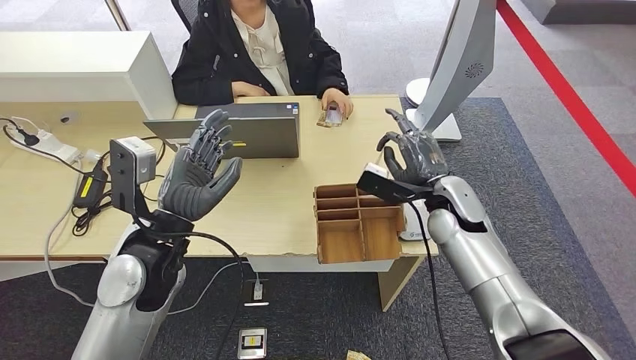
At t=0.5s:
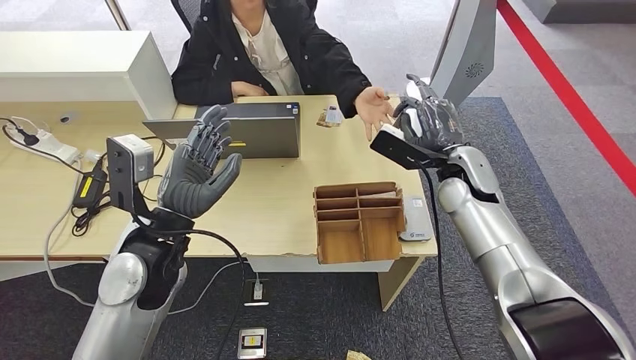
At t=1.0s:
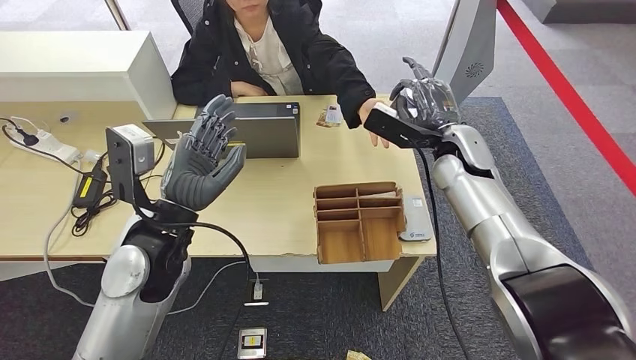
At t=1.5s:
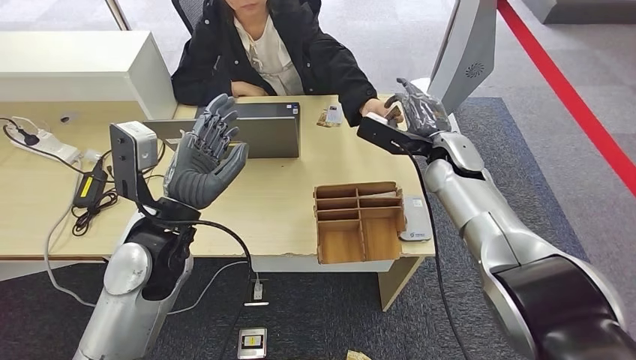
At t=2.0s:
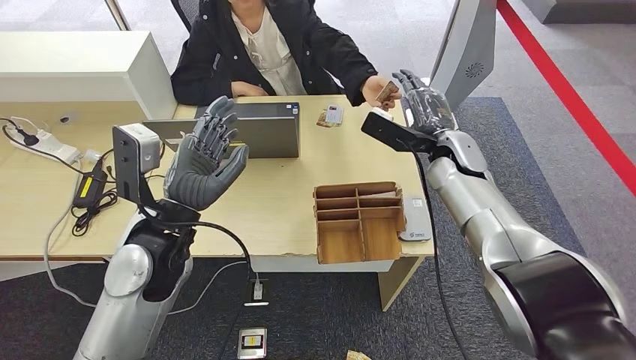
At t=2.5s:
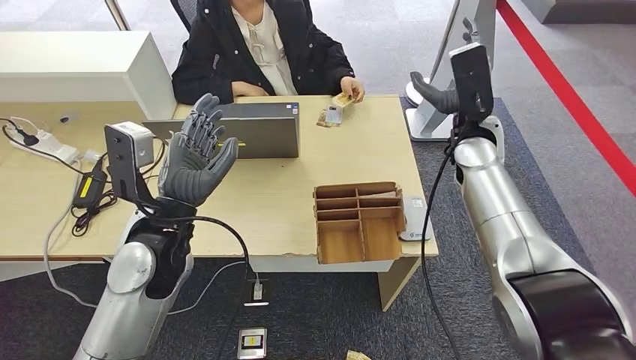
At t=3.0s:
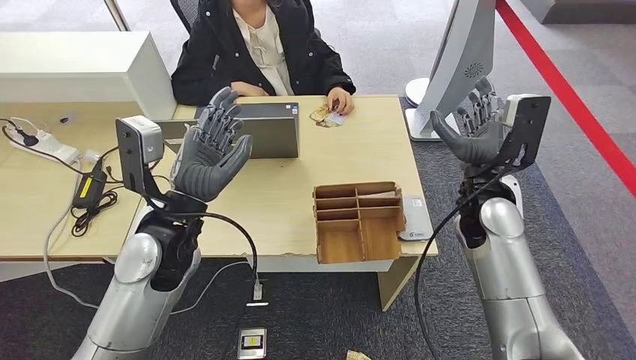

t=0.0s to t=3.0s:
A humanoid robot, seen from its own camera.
Step, t=0.5s to t=3.0s: Hand the room key to the person.

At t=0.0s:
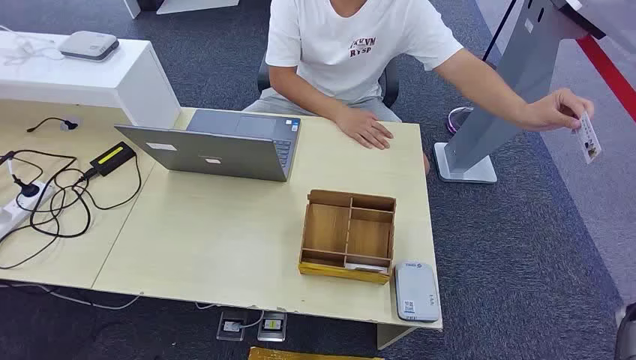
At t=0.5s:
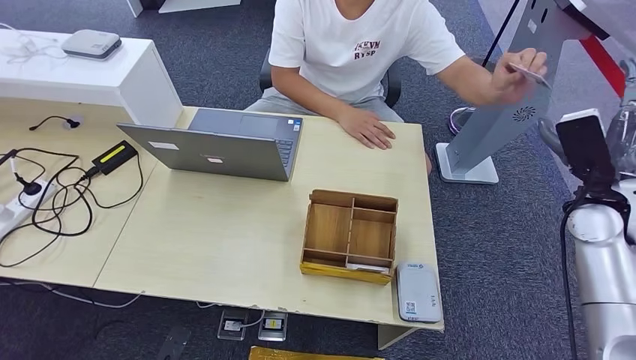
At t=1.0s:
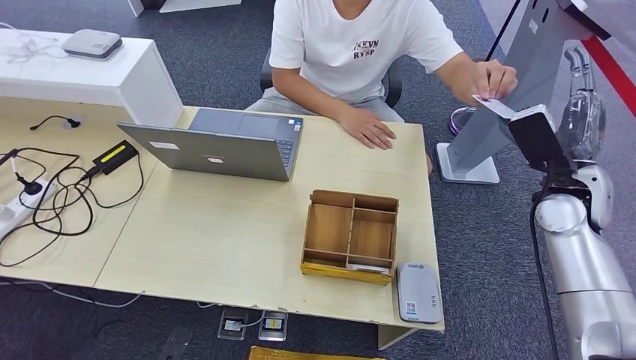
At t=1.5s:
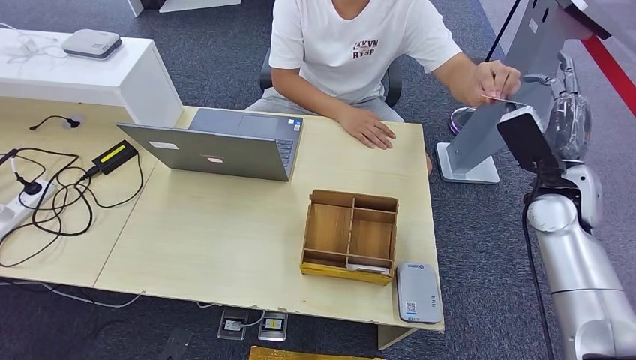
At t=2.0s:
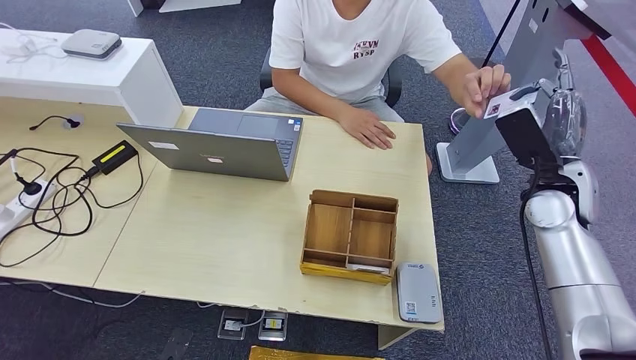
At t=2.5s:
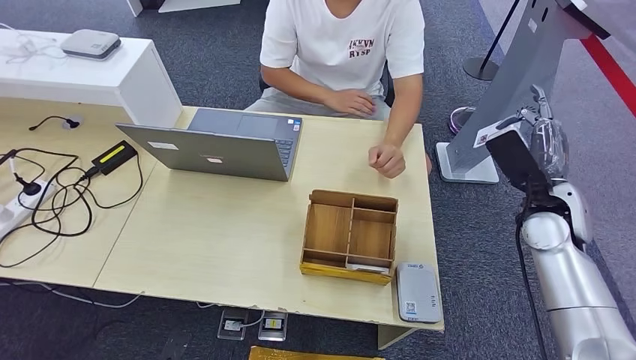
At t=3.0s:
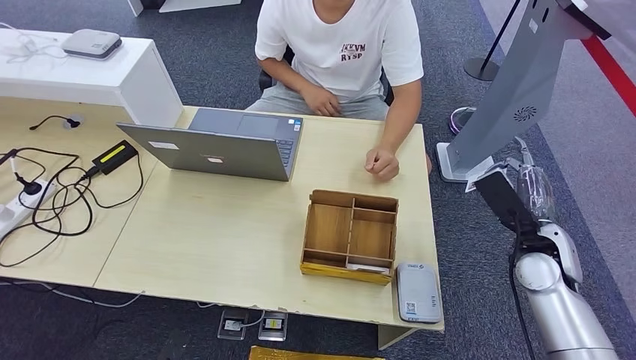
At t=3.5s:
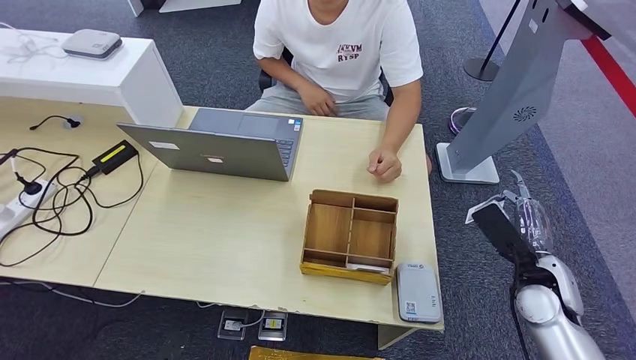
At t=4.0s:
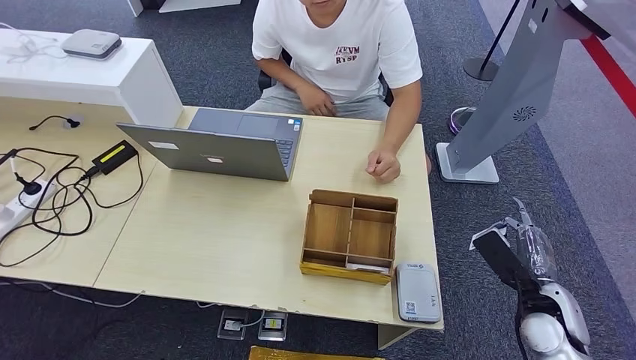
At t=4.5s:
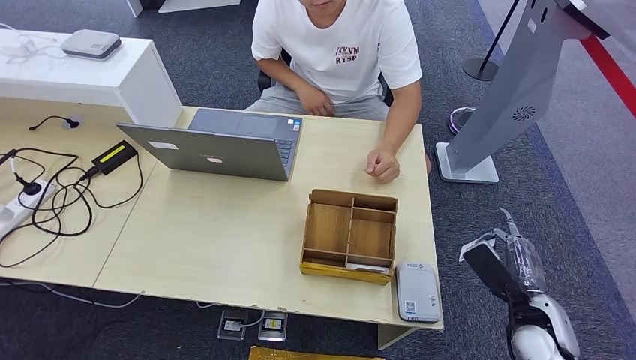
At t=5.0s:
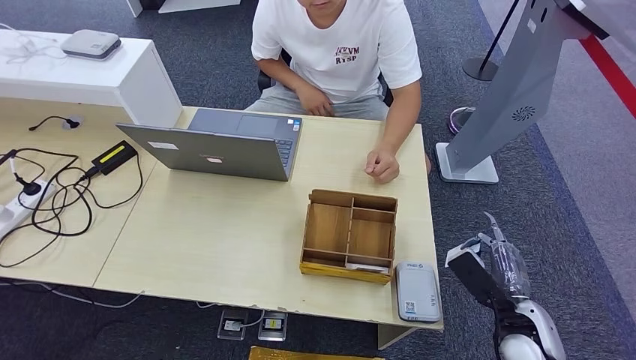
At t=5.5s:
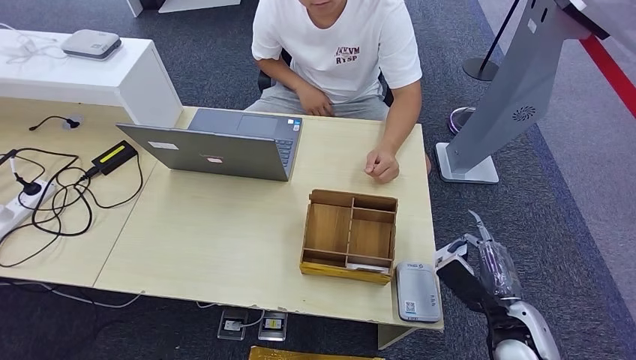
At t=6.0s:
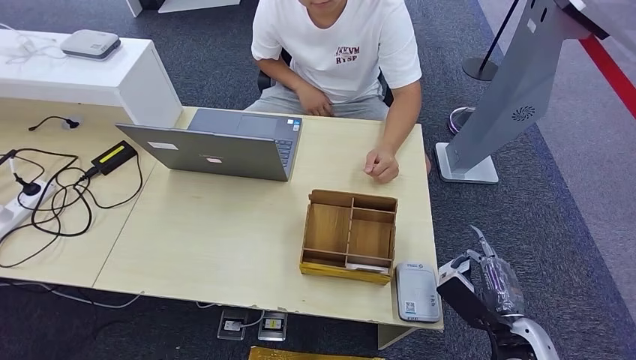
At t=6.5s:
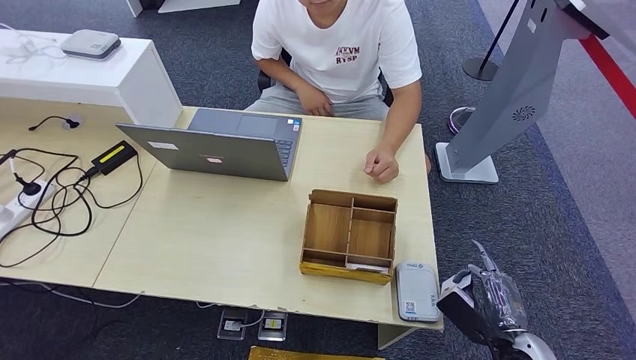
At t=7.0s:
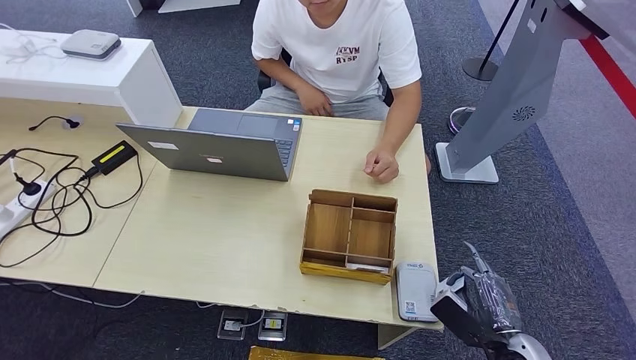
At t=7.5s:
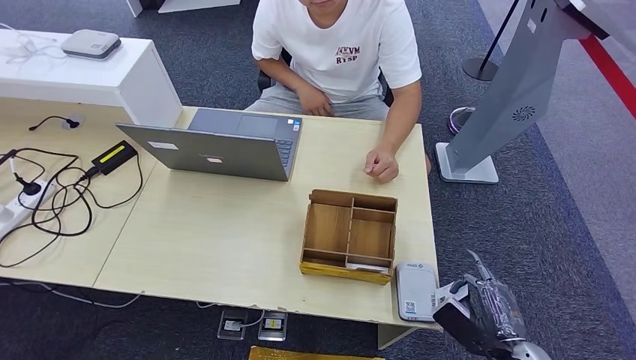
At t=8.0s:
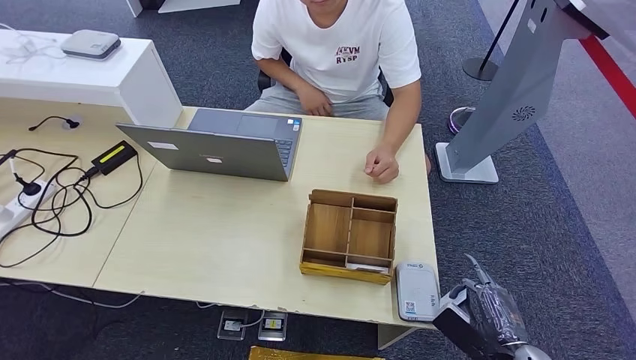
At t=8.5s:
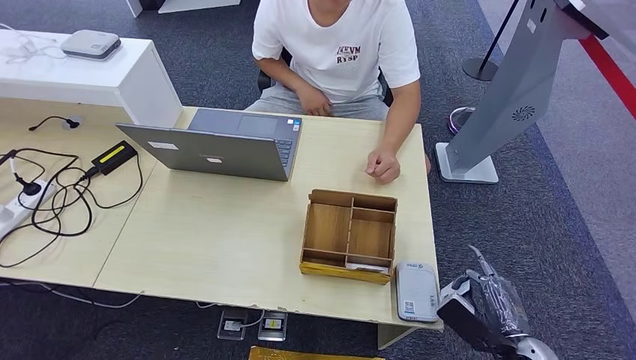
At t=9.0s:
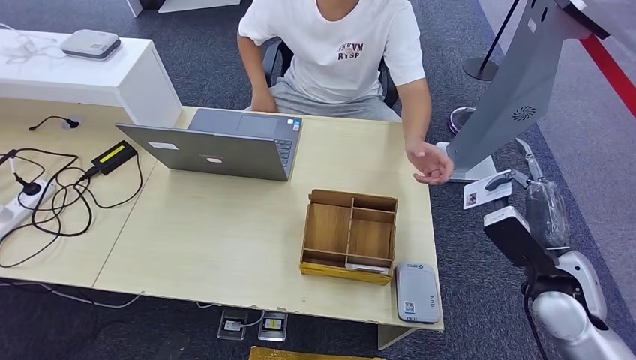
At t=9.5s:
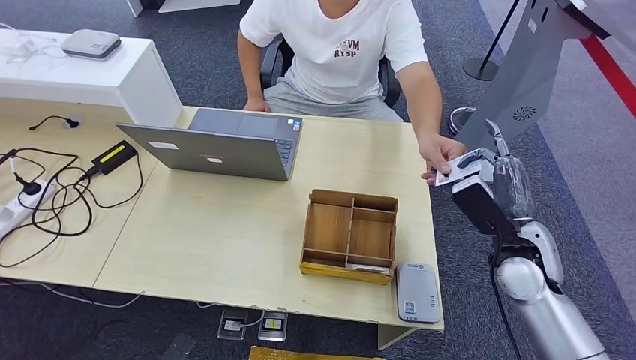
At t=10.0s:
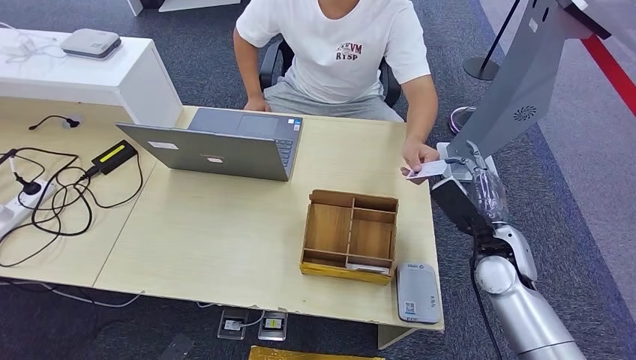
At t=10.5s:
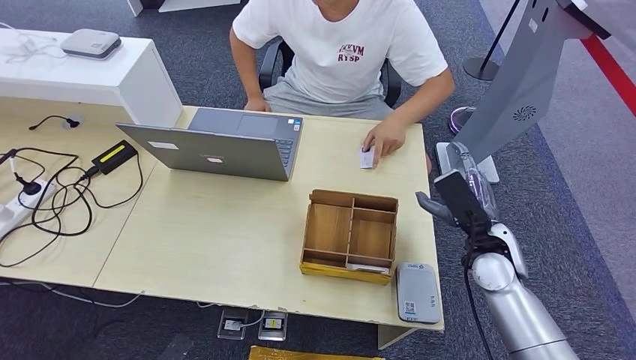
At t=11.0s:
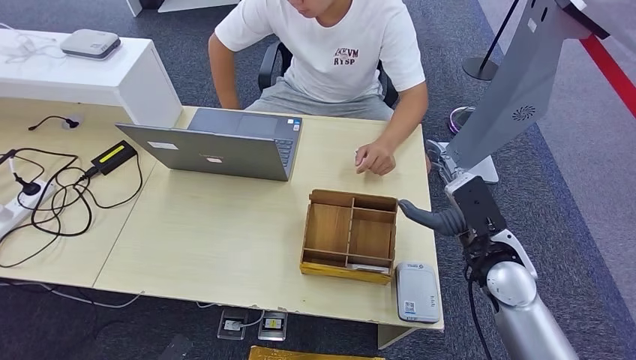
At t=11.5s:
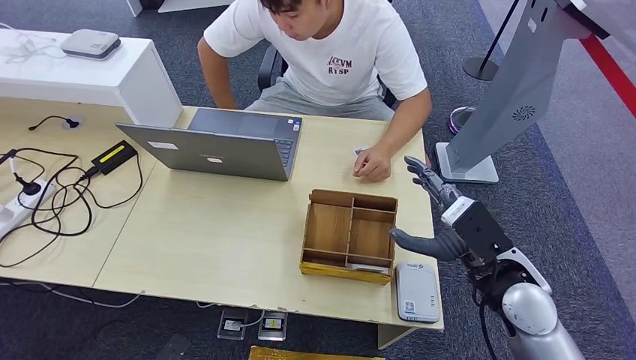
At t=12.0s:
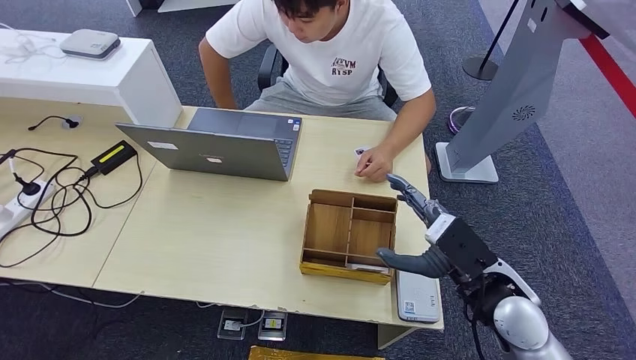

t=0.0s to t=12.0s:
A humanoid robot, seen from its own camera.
Step, t=0.0s to t=2.0s: Take the ID card from the person's hand.
Step, t=2.5s to t=8.0s: Place the ID card on the card reader.
Step, t=8.5s to t=11.5s: Hand the ID card to the person.
t=2.0s to t=4.0s: The right hand shifts approximately 20 cm downward and backward.
t=4.0s to t=6.0s: The right hand moves backward, roughly 5 cm.
t=6.0s to t=8.0s: There are only small adjustments of the hands.
t=8.0s to t=10.0s: The right hand travels forward and upward by about 20 cm.
t=10.0s to t=12.0s: The right hand moves backward and to the left, roughly 10 cm.

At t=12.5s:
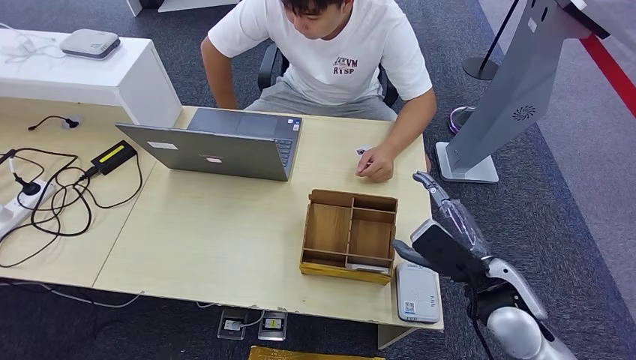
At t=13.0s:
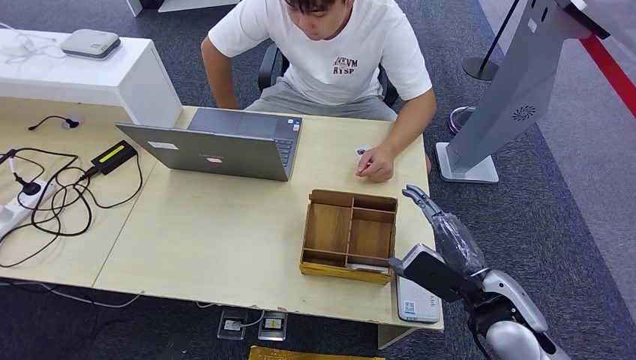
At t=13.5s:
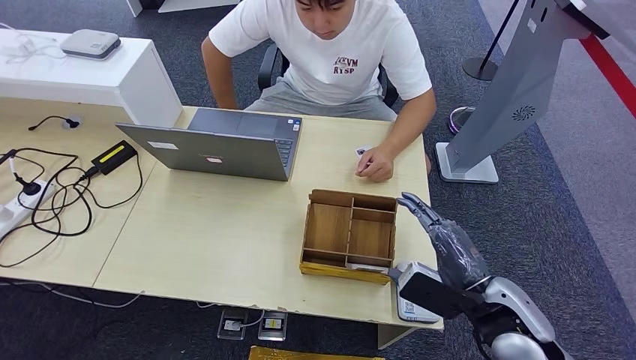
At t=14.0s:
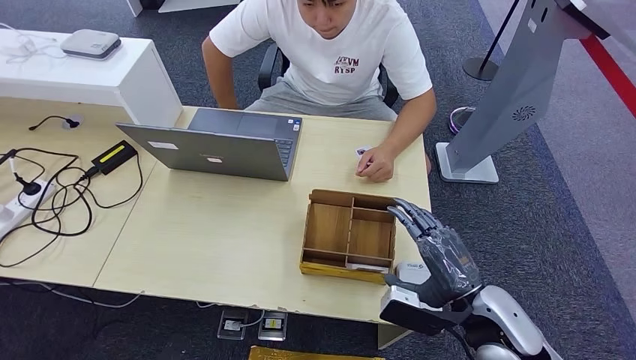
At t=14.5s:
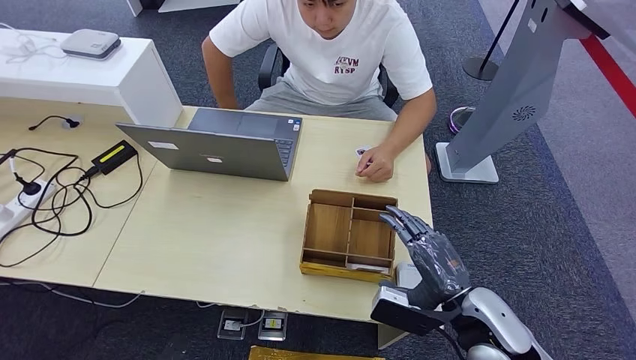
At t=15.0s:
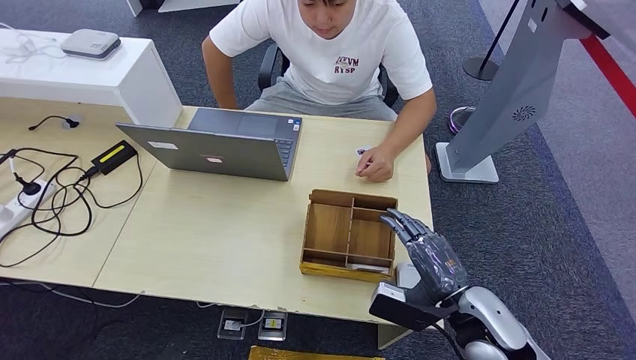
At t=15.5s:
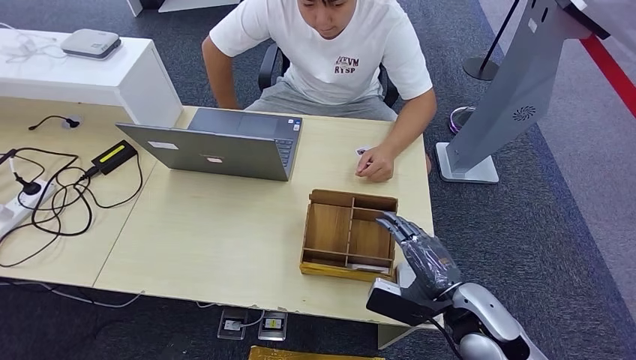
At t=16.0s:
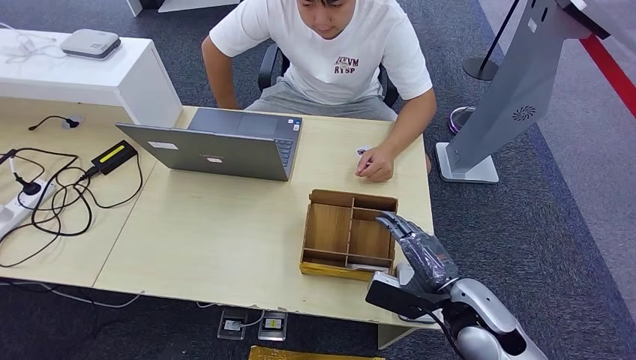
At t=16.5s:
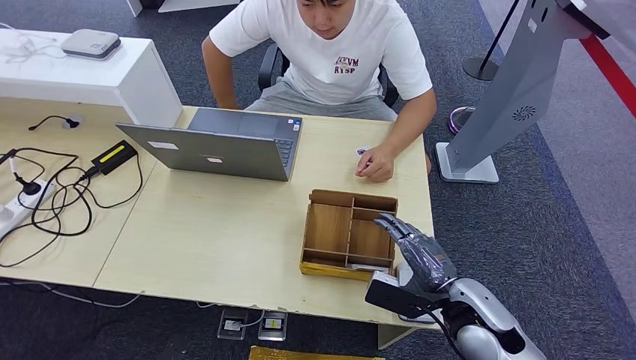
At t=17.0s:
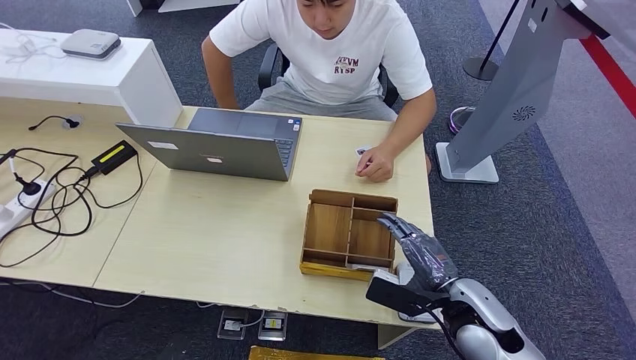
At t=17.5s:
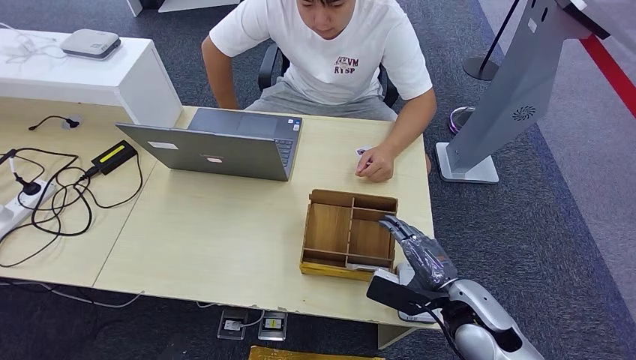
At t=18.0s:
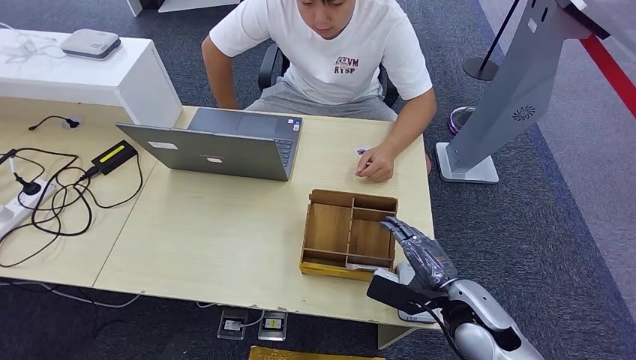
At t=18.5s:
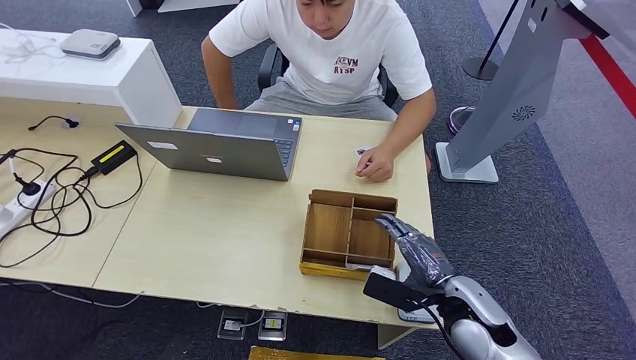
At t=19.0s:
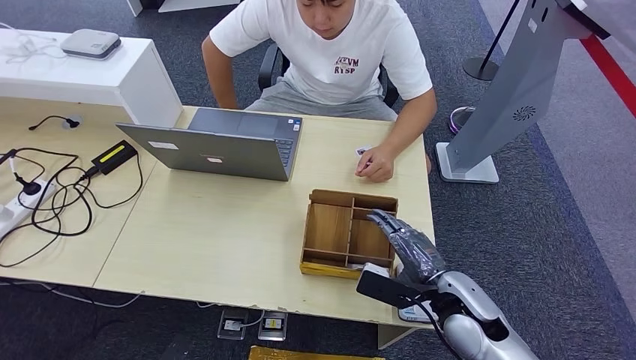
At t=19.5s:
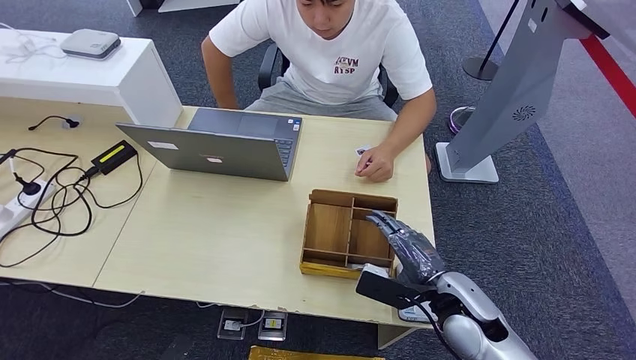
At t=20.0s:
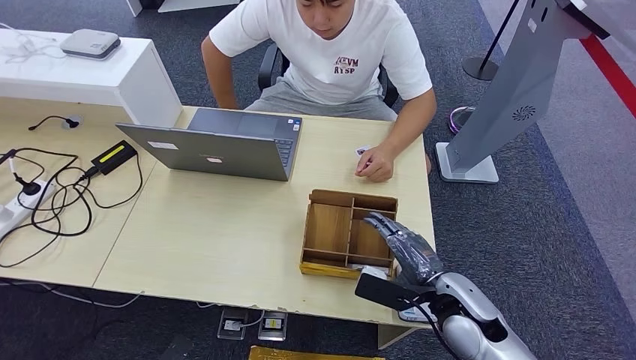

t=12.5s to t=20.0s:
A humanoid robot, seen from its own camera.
t=12.5s to t=14.5s: The right hand shifts by about 5 cm.
t=14.5s to t=20.0s: There are only small adjustments of the hands.